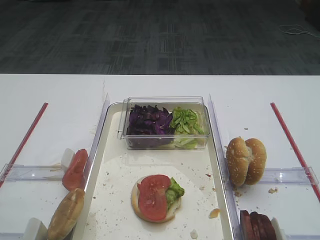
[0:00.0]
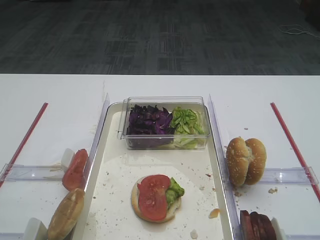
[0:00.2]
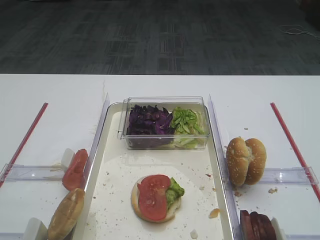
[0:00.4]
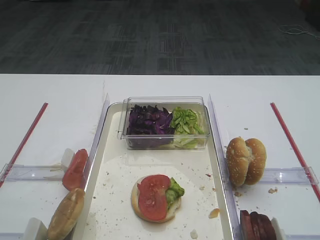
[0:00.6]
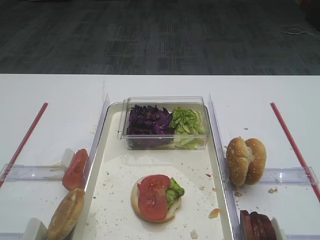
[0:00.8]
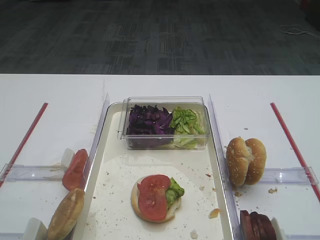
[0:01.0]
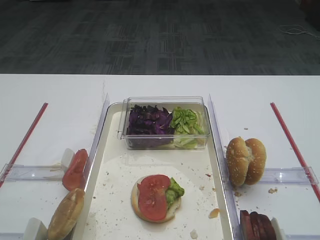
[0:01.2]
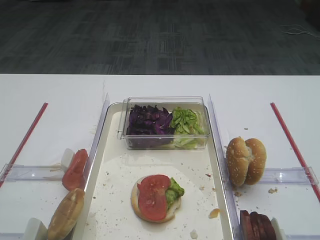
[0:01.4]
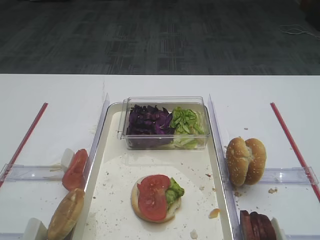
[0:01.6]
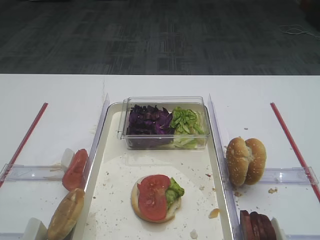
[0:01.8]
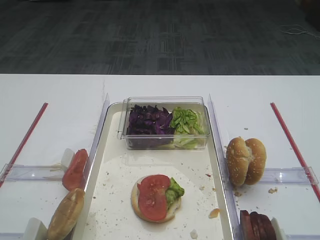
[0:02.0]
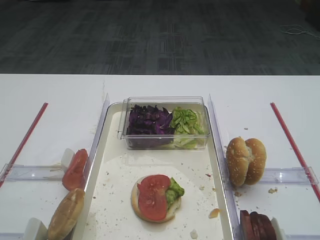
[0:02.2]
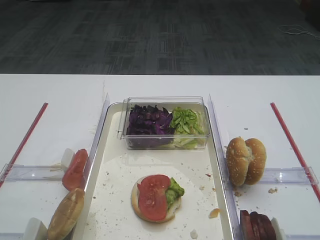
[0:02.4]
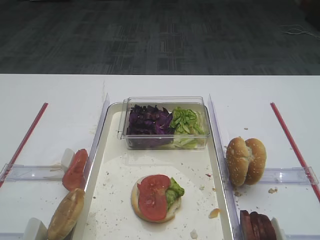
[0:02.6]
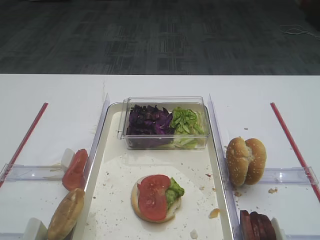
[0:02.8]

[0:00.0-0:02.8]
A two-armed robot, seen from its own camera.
0:01.4 to 0:02.8: Neither gripper changes place.

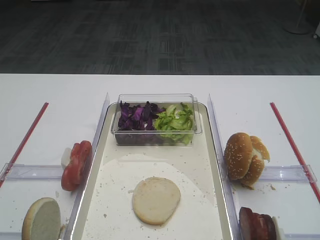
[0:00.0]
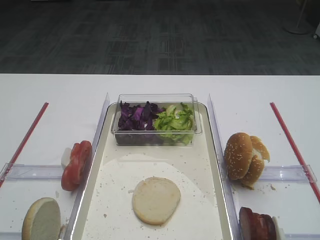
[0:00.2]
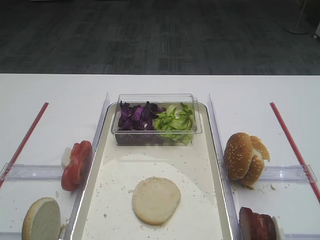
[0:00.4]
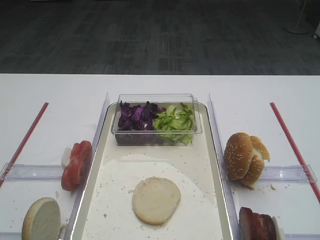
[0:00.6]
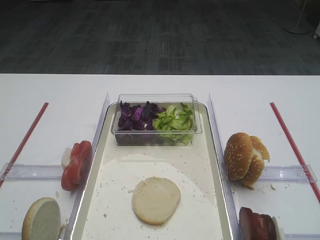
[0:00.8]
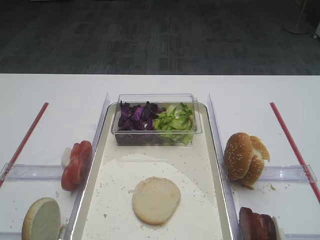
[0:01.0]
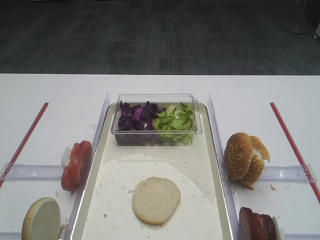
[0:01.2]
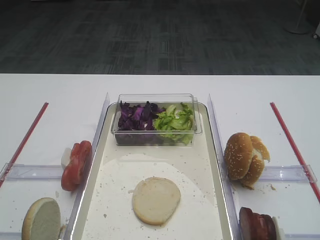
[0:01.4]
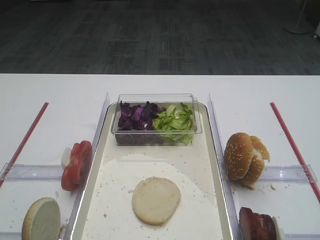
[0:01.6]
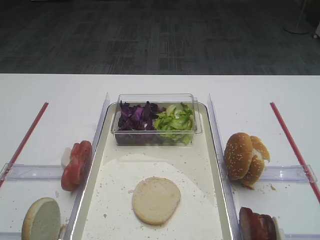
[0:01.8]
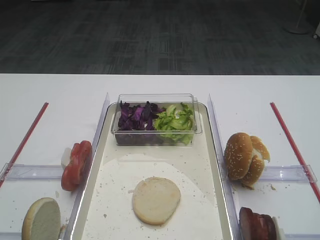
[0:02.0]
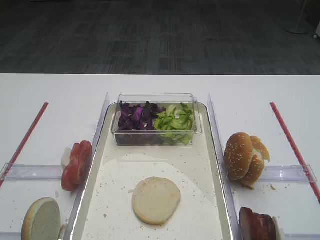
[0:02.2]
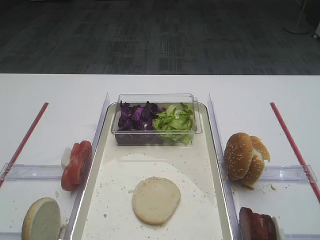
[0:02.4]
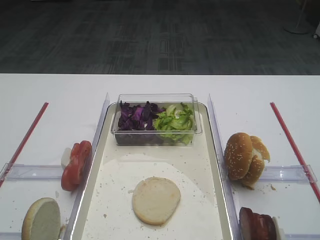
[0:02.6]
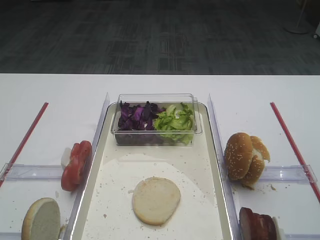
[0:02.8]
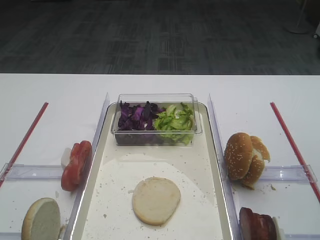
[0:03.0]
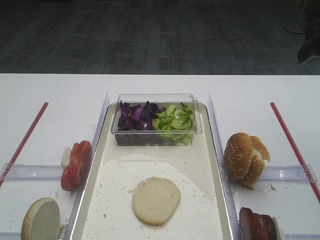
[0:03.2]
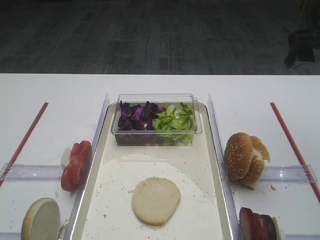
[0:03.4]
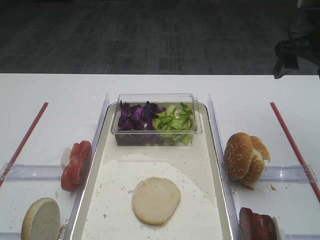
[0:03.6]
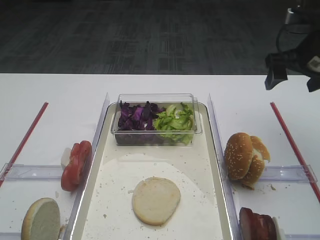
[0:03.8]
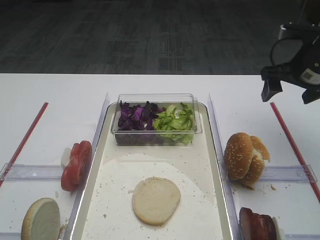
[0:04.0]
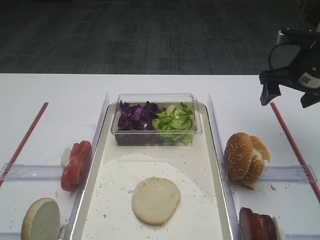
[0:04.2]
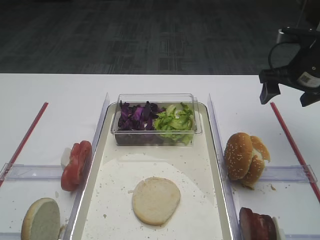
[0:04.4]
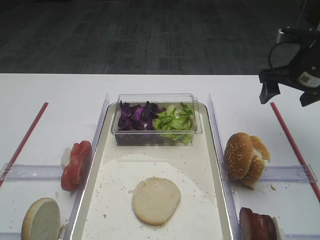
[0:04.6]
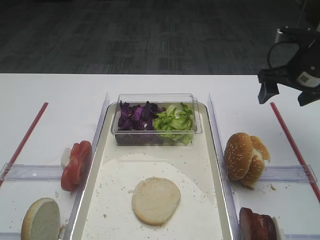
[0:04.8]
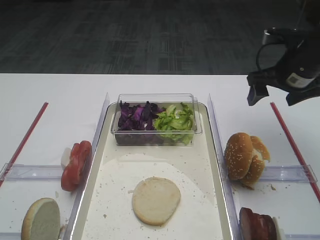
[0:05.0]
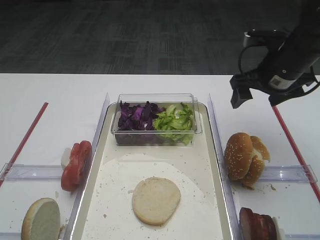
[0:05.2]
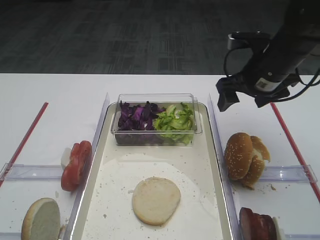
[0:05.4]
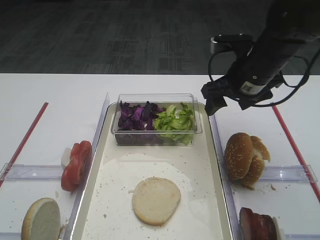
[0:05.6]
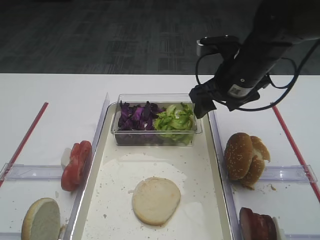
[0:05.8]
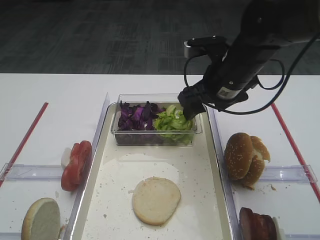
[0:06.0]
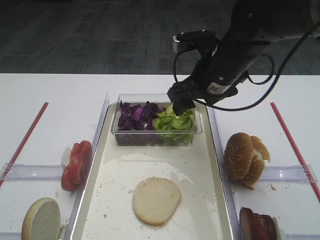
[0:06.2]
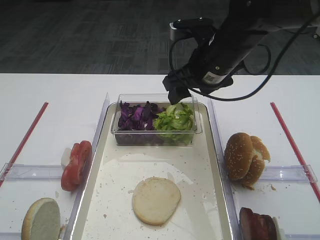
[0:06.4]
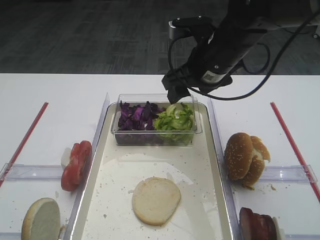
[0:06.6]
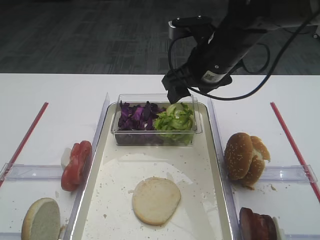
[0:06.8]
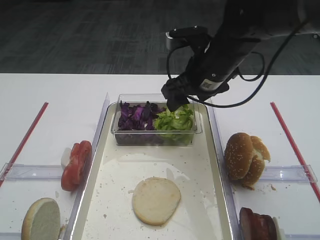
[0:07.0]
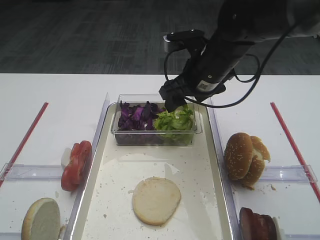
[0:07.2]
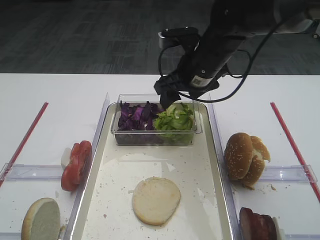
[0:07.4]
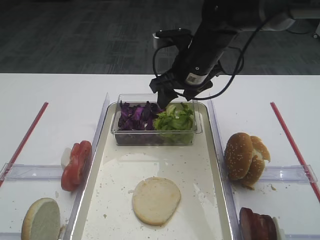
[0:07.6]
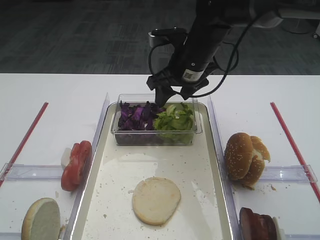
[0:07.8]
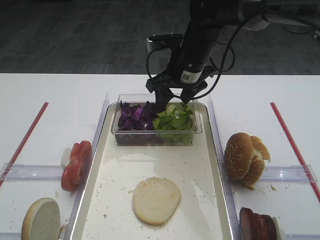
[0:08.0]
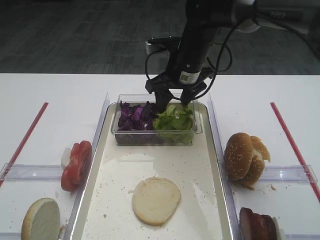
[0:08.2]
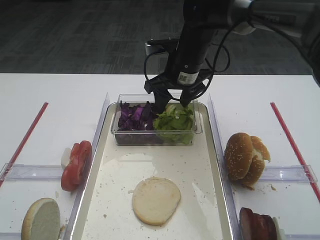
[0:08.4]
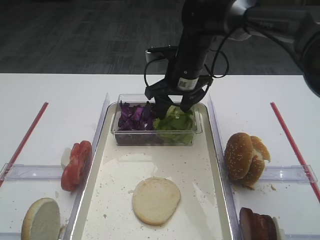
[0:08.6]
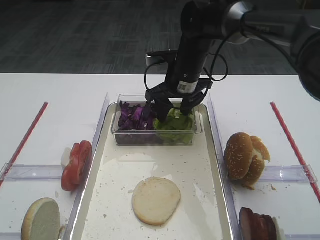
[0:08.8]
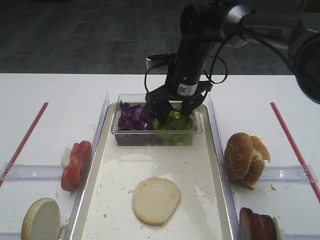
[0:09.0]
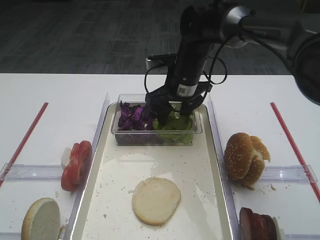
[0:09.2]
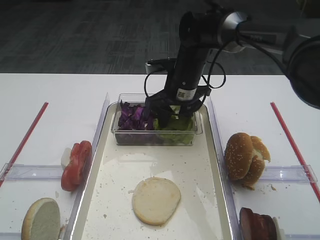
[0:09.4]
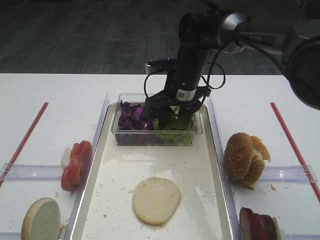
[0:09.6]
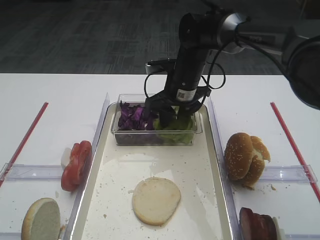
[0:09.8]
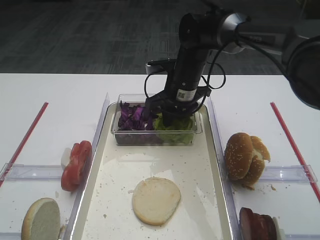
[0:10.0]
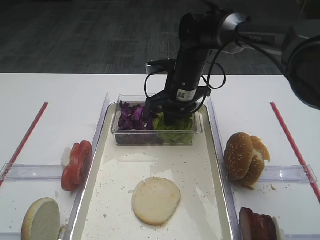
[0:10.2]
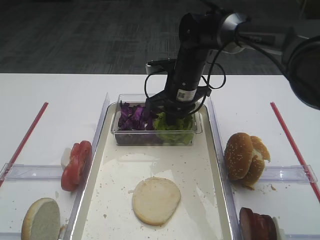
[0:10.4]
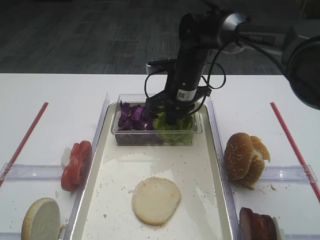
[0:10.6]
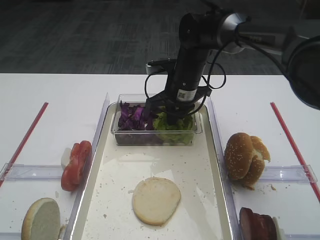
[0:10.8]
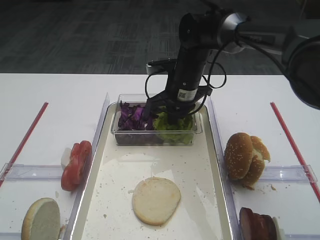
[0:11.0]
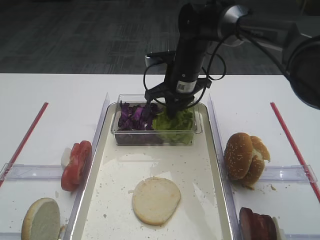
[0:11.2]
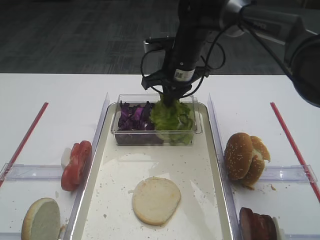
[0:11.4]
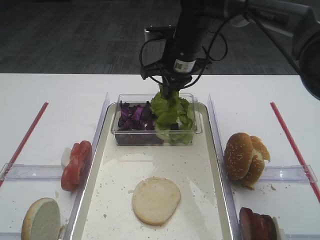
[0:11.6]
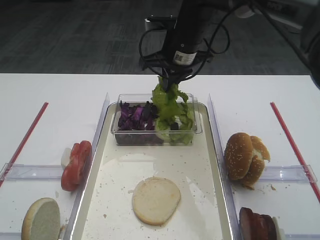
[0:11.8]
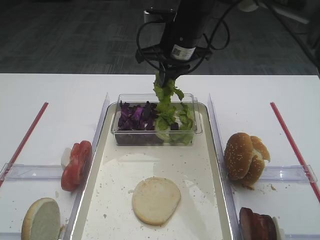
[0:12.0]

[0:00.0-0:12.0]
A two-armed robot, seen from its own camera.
Step, 0:00.0 to 0:11.4: Pick up the lettuce leaf with the right gripper.
0:03.0 to 0:04.4: The right gripper is displaced forward and downward by about 20 cm.
0:04.4 to 0:06.0: The right gripper travels to the left by roughly 15 cm.
0:06.0 to 0:07.6: The right gripper moves some 5 cm.
0:07.6 to 0:09.0: The right gripper changes place by roughly 5 cm.
0:09.0 to 0:10.4: The right gripper closes up.
0:10.4 to 0:12.0: The right gripper travels upward by about 10 cm.

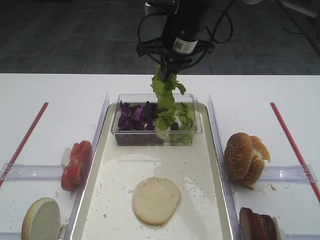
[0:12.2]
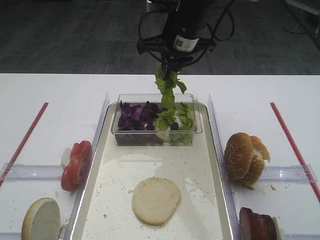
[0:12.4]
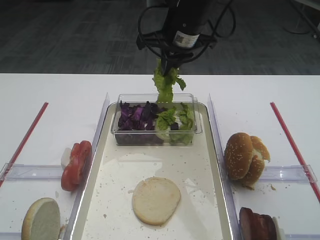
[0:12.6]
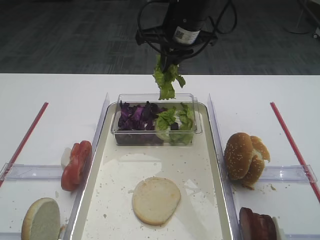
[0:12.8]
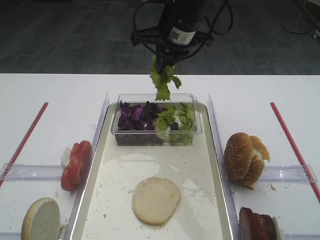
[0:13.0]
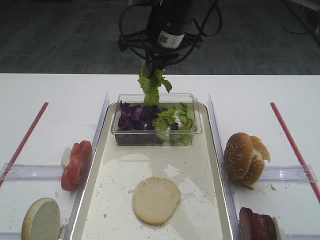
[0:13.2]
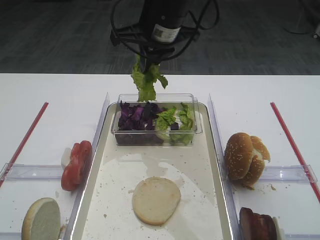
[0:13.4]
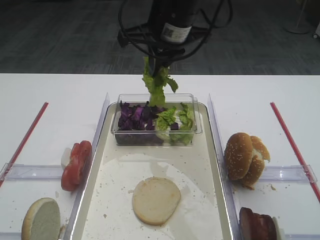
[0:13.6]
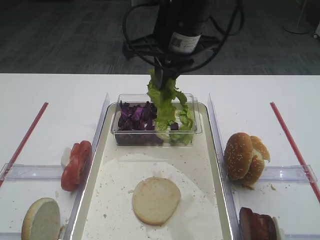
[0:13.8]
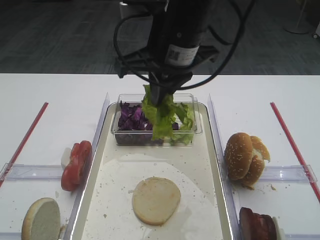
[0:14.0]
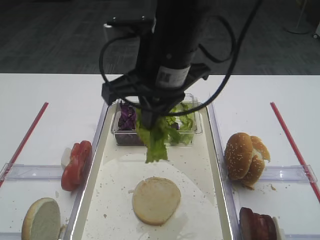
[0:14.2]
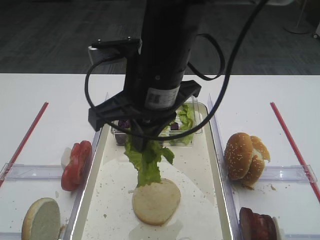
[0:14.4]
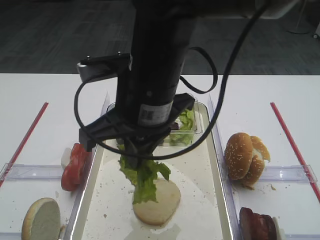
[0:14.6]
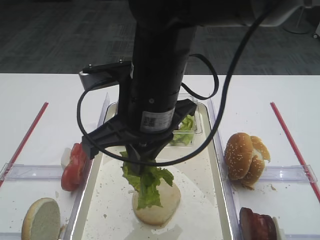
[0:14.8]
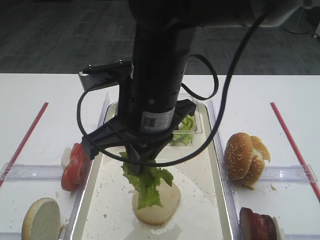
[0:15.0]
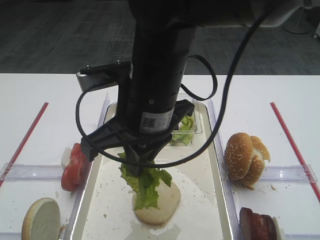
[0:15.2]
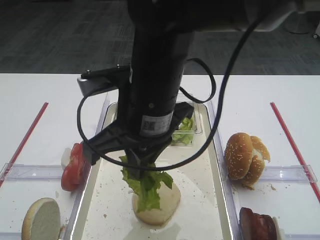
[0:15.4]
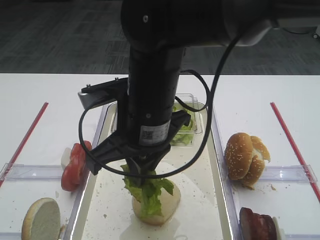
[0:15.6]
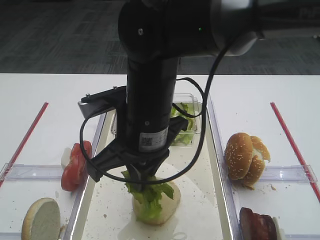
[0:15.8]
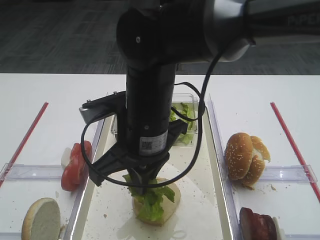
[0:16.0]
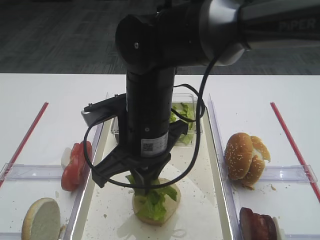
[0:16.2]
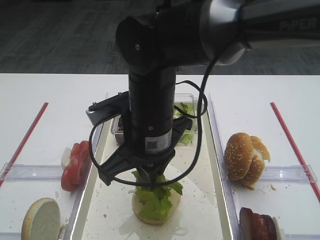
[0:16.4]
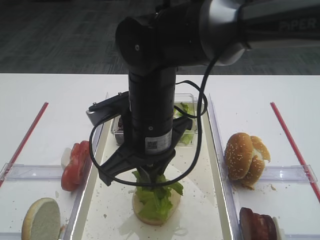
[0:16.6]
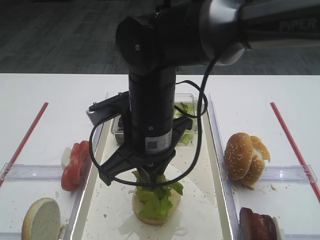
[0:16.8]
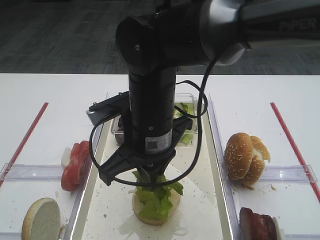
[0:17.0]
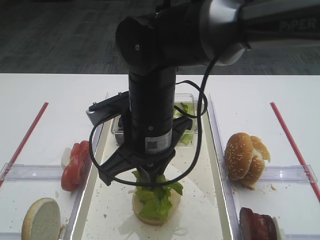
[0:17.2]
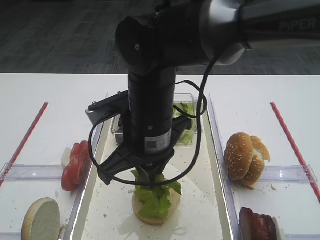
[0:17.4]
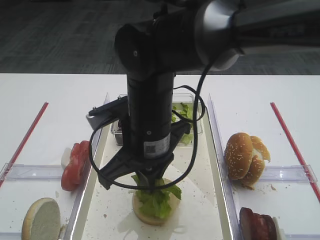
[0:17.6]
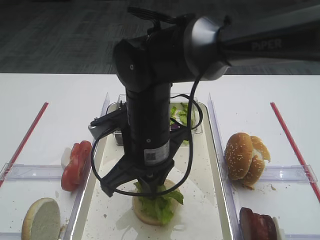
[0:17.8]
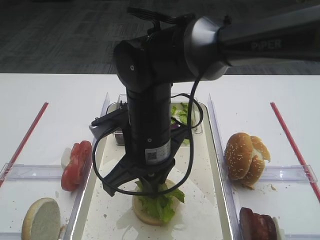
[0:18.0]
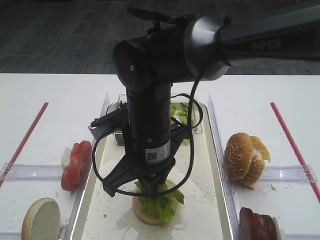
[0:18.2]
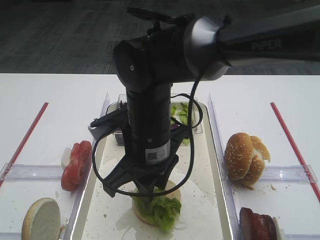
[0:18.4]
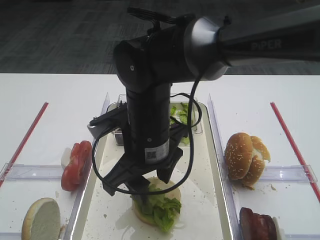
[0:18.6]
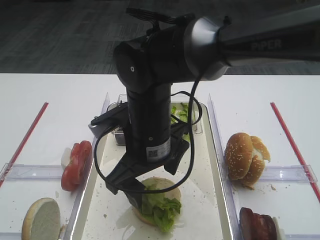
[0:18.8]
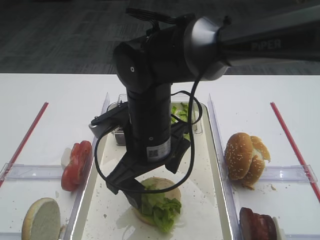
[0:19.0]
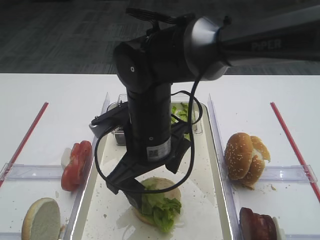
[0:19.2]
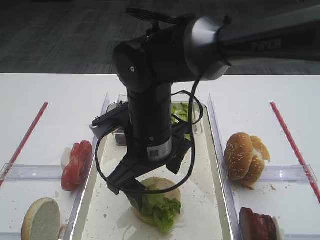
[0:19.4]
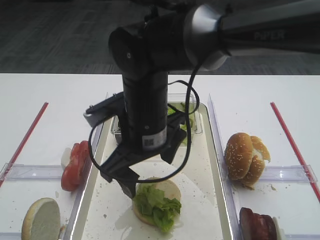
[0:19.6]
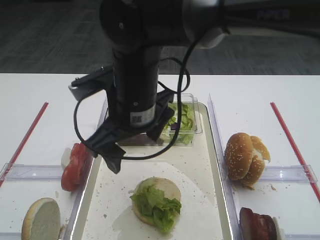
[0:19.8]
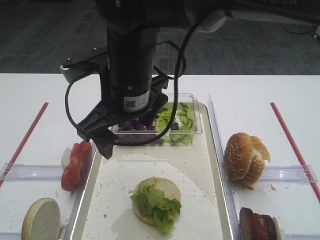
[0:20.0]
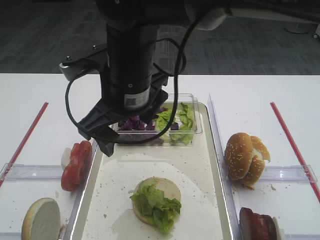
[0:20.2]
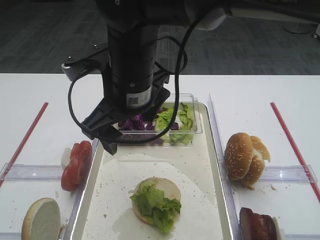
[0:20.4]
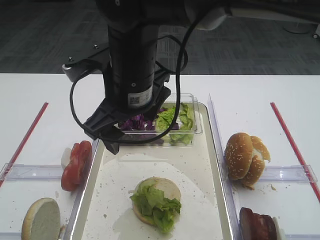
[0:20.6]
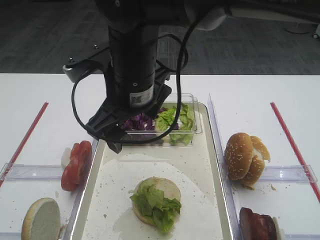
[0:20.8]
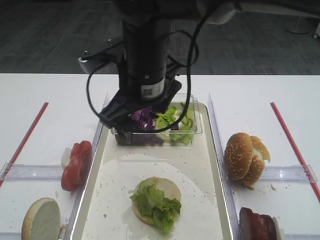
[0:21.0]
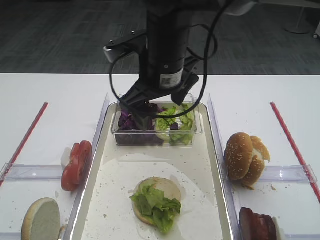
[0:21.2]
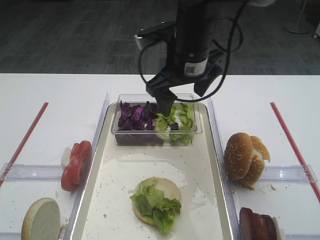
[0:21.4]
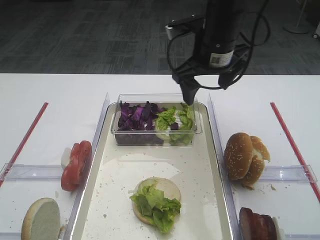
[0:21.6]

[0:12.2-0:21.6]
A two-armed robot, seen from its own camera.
Step, 0:12.2 to 0:19.8: Place the lettuce leaf on the bread slice with the right gripper.
0:12.2 to 0:13.8: The right gripper is displaced backward by approximately 10 cm.
0:13.8 to 0:15.4: The right gripper shifts roughly 10 cm backward.
0:15.4 to 0:17.0: The right gripper shifts by roughly 5 cm.
0:17.0 to 0:18.4: There are only small adjustments of the grippers.
0:18.4 to 0:20.0: The right gripper shifts some 5 cm upward, and opens.
0:20.0 to 0:21.6: The right gripper goes about 15 cm to the right and forward.
